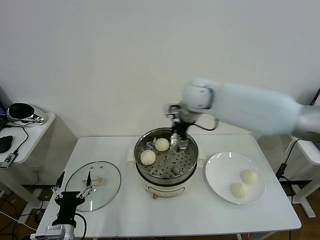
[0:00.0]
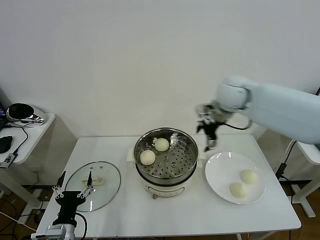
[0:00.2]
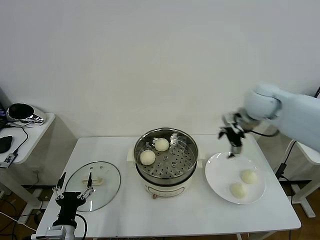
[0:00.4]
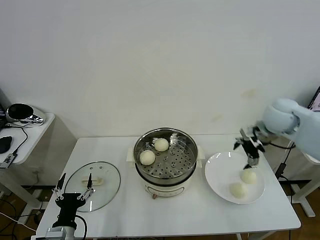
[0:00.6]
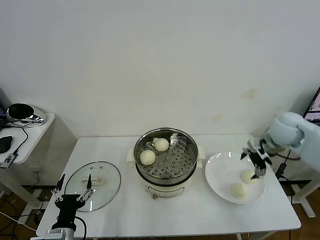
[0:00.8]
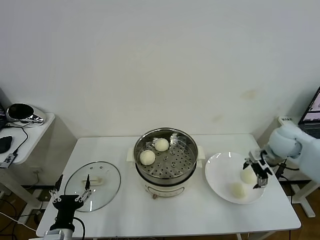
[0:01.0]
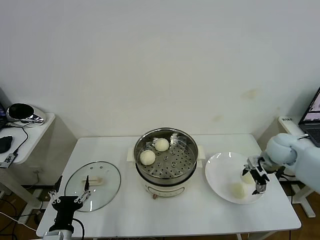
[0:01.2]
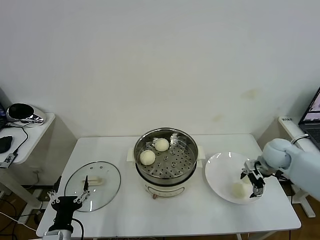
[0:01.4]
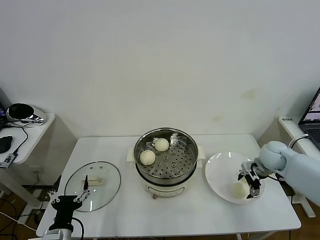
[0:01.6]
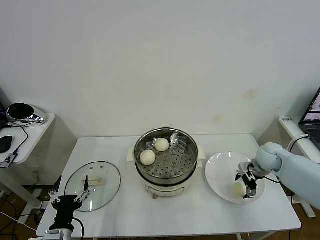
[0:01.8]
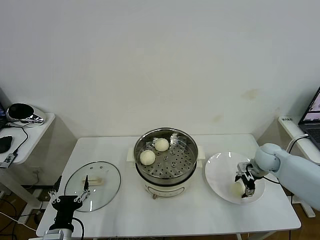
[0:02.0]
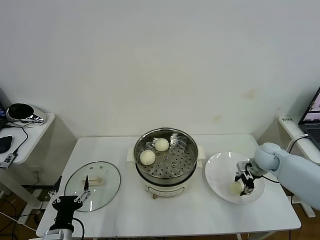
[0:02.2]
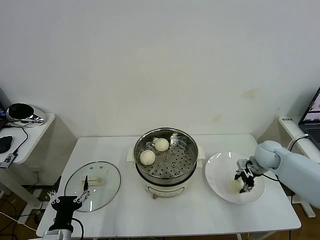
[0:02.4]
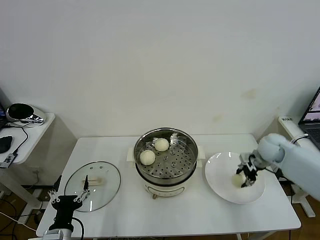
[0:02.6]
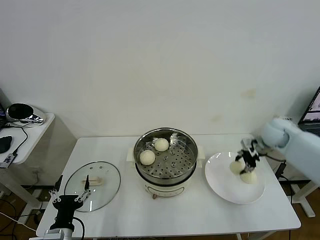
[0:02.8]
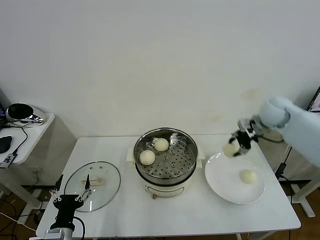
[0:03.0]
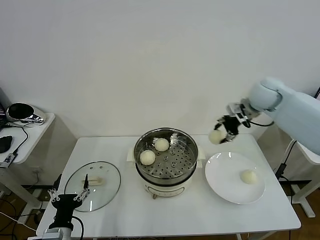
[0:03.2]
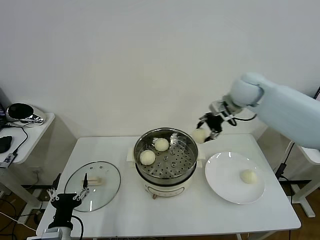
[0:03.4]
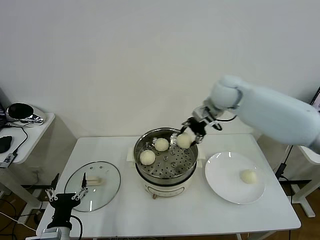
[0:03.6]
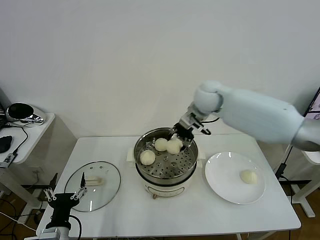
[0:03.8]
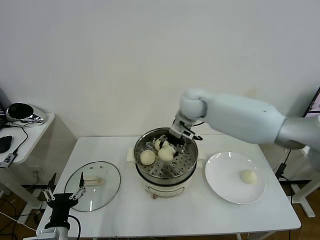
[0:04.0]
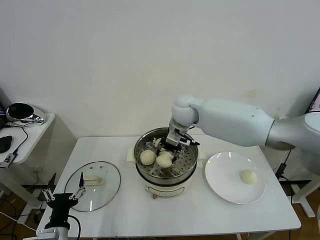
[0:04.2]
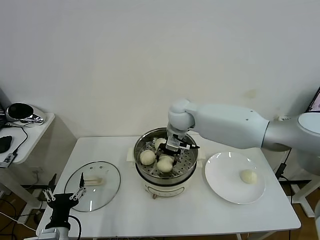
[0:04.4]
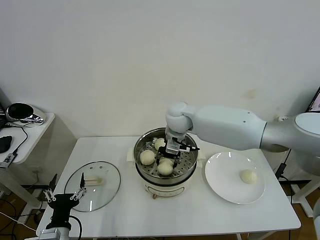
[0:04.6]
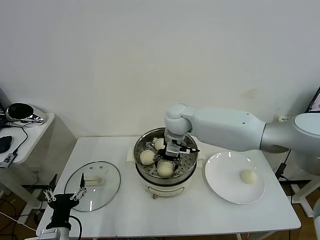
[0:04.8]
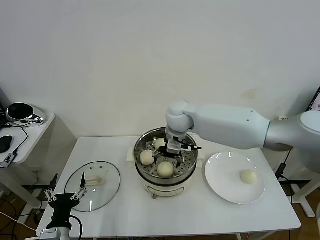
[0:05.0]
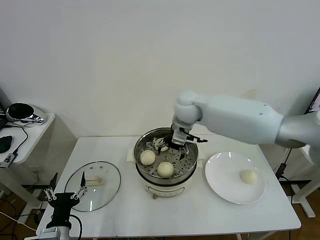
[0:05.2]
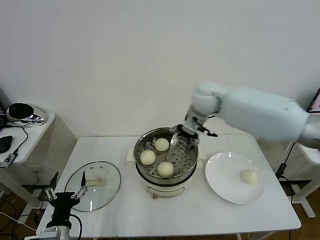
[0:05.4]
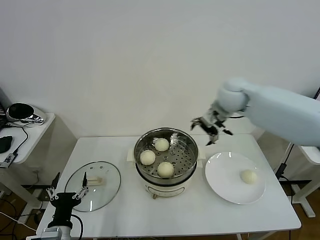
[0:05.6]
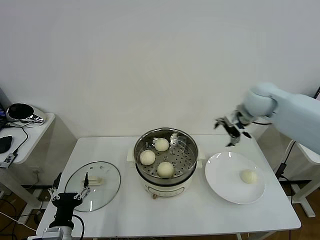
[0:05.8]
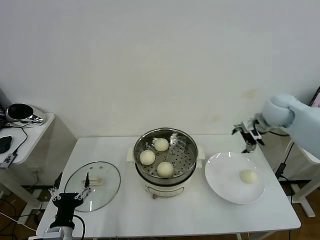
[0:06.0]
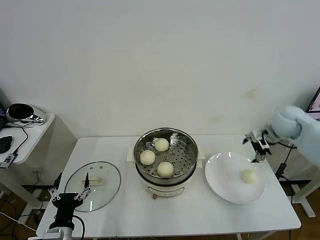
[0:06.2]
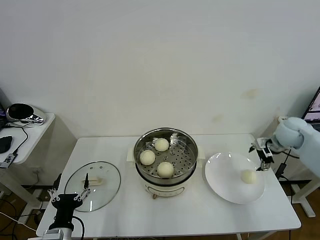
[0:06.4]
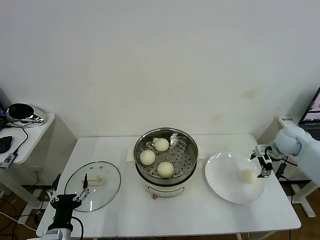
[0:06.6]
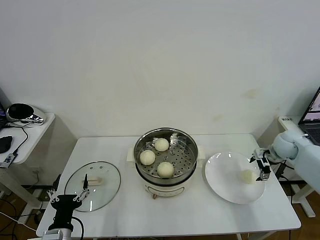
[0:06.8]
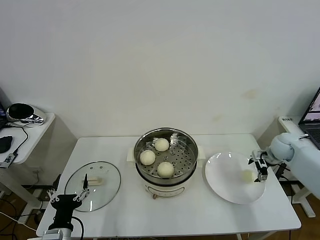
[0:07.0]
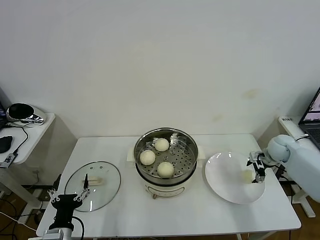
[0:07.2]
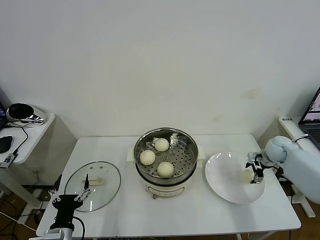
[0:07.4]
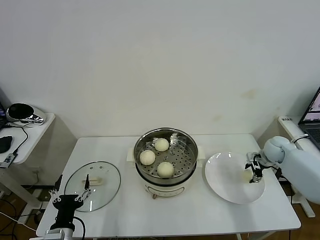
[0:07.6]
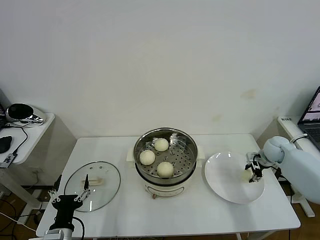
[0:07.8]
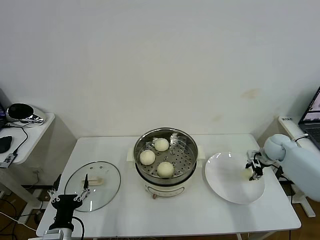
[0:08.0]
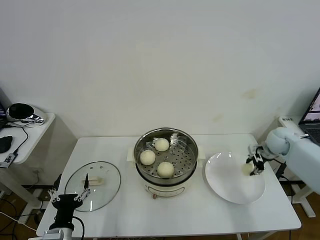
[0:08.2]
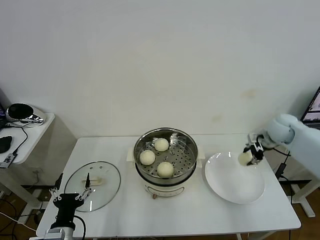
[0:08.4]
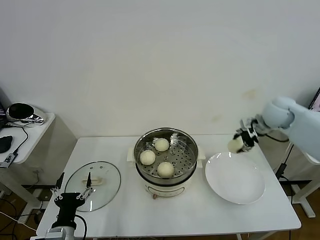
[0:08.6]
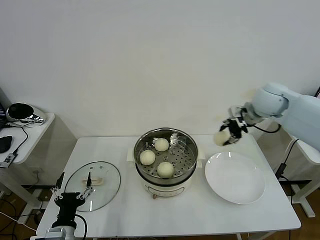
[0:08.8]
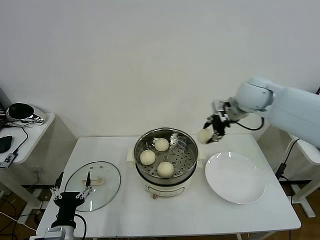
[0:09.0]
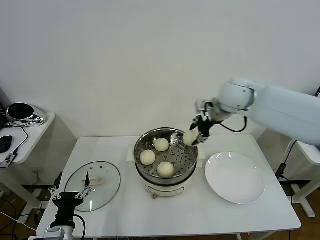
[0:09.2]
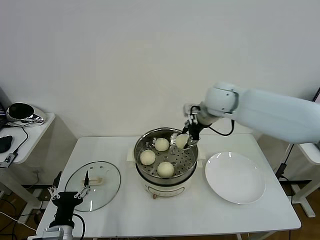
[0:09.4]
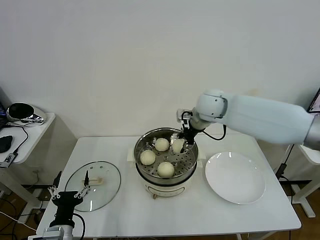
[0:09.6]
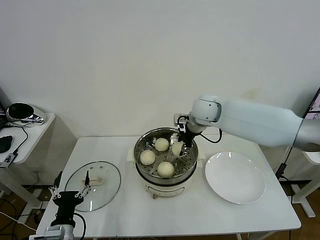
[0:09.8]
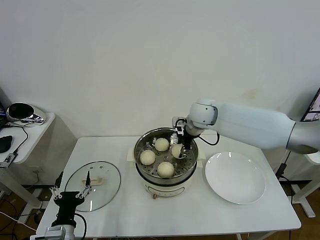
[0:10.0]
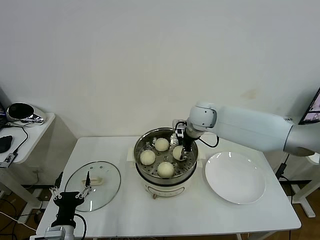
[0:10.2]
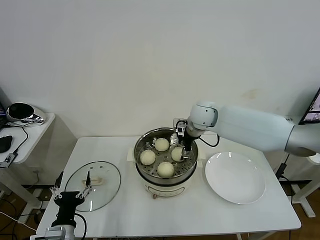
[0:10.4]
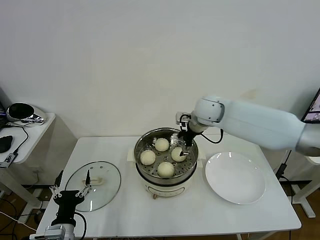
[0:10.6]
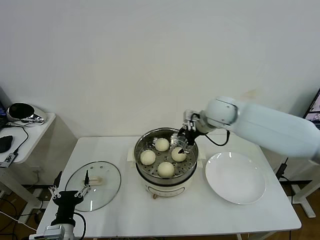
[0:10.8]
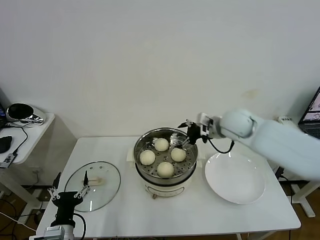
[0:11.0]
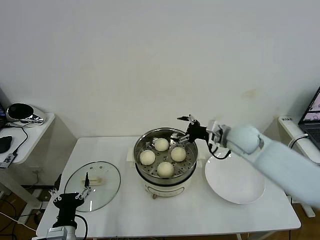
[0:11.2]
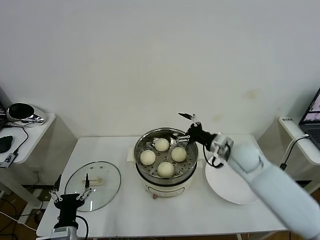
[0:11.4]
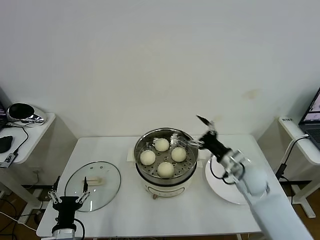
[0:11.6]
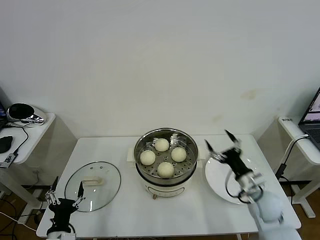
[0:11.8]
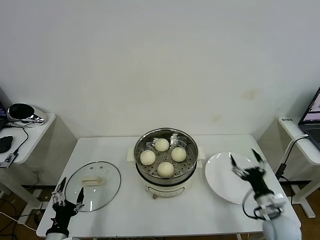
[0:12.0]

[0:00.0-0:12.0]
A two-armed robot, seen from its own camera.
Task of the whole recording: take steamed baozi put them in steamer then cover it.
Step, 0:00.0 to 0:02.2: Grasp the baozi in the plate with right gripper.
Step, 0:02.4 to 0:05.0: Place the baozi on the steamer with right gripper.
Step, 0:05.2 to 0:07.8: Grasp the baozi in the plate with right gripper.
Step, 0:08.0 to 0:10.4: Place the baozi on the steamer with right gripper.
0:00.0 to 0:01.6: The right gripper is displaced to the right and downward by about 35 cm.
0:01.6 to 0:03.0: The right gripper is displaced upward and forward by about 20 cm, and closes its fingers.
0:03.0 to 0:04.4: The right gripper heads to the left, covering about 30 cm.
0:04.4 to 0:06.0: The right gripper travels to the right by about 30 cm, and opens.
0:06.0 to 0:07.6: The right gripper is displaced downward and to the right by roughly 20 cm, and closes.
0:07.6 to 0:09.0: The right gripper is displaced upward and to the left by some 30 cm.
0:09.0 to 0:10.4: The right gripper is displaced to the left and downward by approximately 15 cm, and opens its fingers.
0:10.4 to 0:12.0: The left gripper shifts by roughly 5 cm. Meanwhile the right gripper travels backward, to the right and downward by about 40 cm.

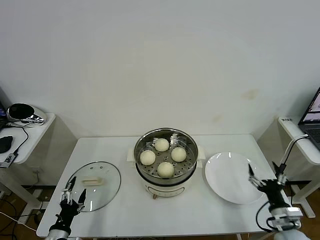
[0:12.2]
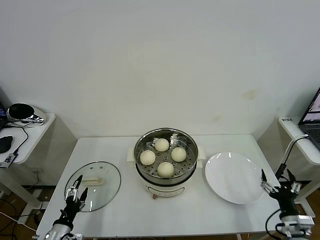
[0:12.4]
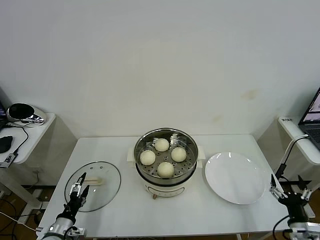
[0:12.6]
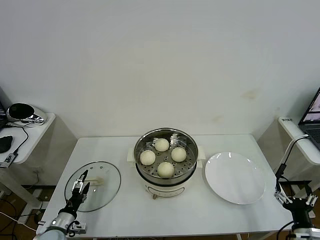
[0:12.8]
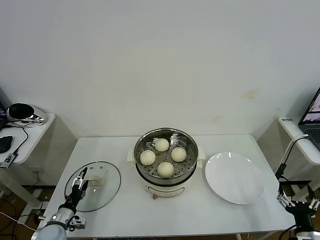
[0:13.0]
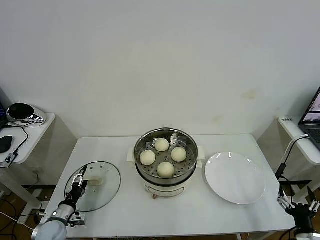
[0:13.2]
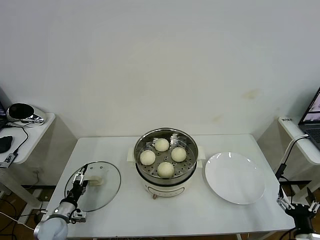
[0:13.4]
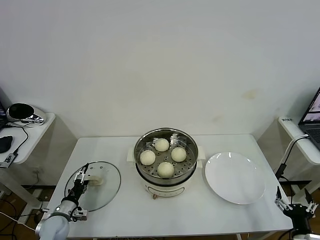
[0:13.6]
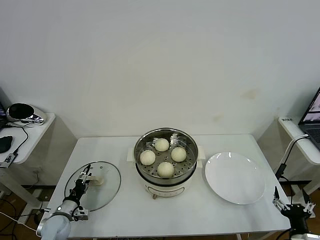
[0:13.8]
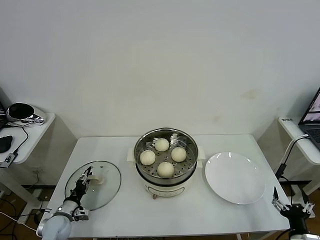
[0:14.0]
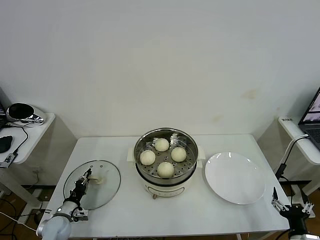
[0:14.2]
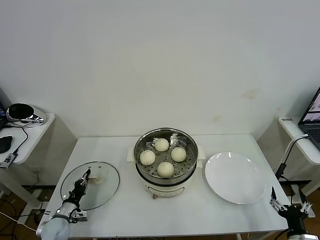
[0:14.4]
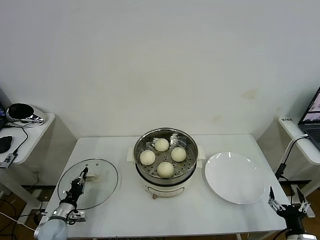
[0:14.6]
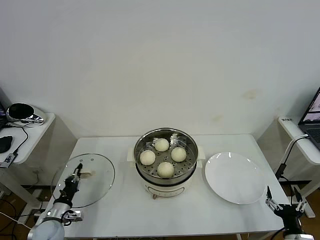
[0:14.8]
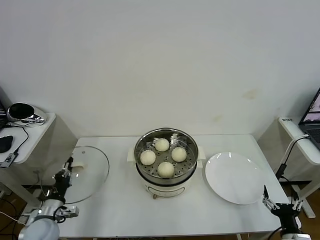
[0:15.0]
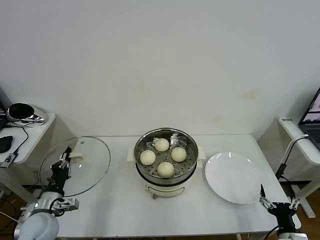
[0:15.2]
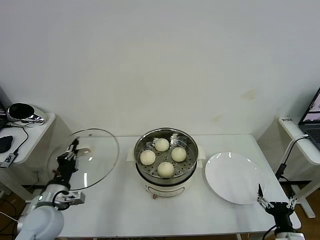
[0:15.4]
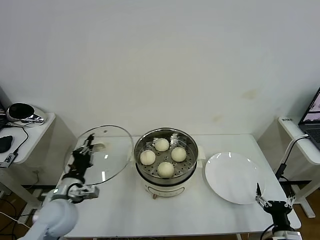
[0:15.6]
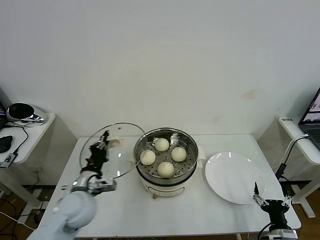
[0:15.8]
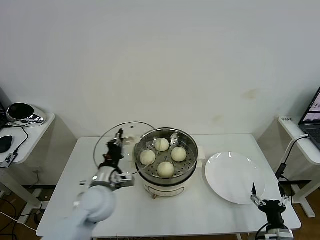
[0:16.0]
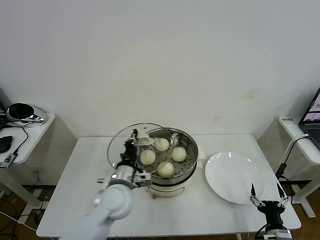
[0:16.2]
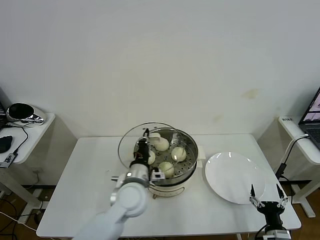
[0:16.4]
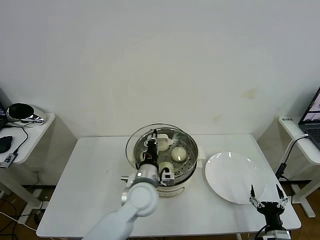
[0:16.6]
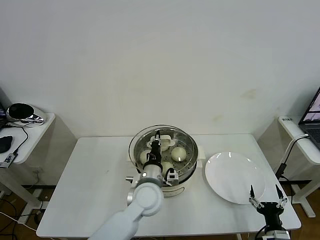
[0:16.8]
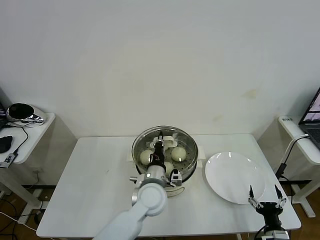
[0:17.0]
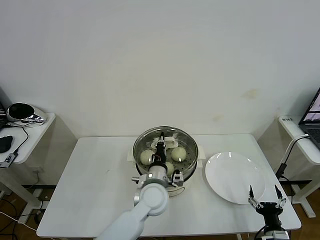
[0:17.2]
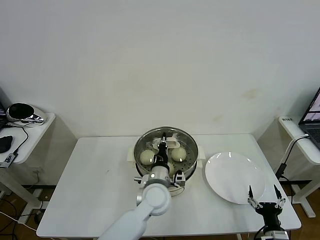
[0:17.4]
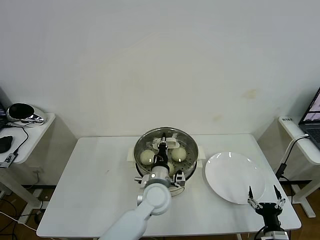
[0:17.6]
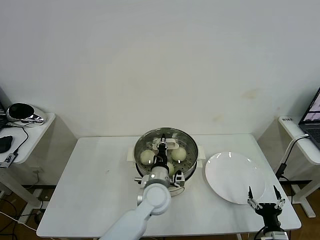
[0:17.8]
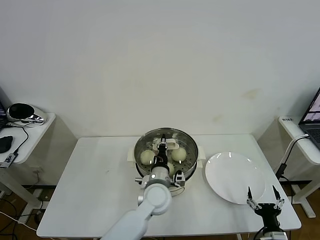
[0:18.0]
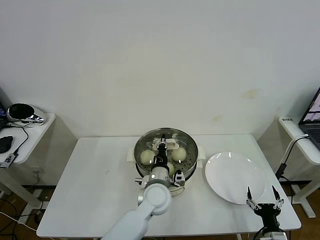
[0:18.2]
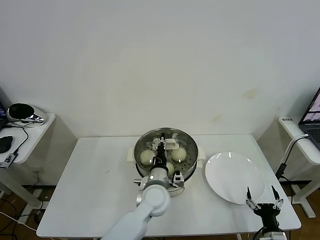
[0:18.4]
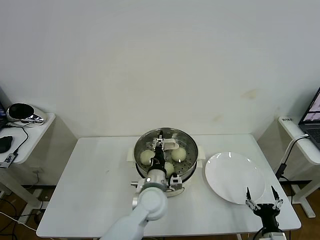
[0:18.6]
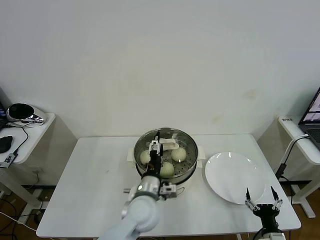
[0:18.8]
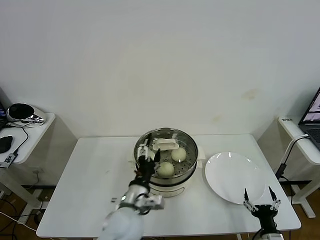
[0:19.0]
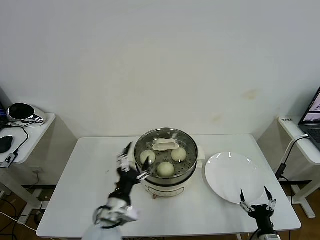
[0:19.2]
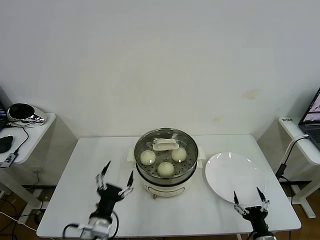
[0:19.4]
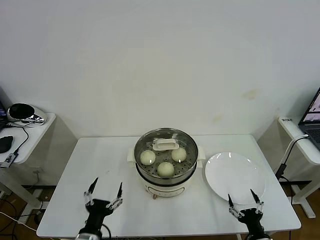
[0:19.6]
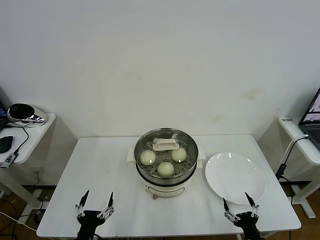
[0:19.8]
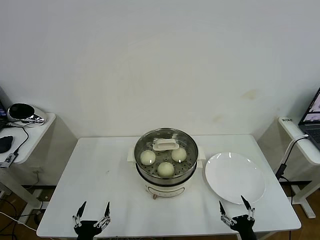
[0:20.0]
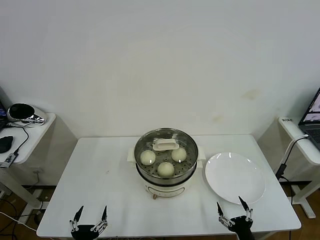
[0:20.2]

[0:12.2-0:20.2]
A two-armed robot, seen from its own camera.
Task of the whole recording: take steamed baozi put them in steamer then cover it.
Step, 0:12.2 to 0:14.4: Grasp the pot lid with left gripper.
Step, 0:14.6 to 0:18.8: Place the pot lid on the steamer with left gripper.
0:12.2 to 0:13.8: The left gripper travels forward and downward by roughly 15 cm; the right gripper heads backward, covering roughly 10 cm.
0:13.8 to 0:15.4: The left gripper is displaced upward by roughly 15 cm, and closes up.
0:15.4 to 0:17.0: The left gripper travels to the right by approximately 30 cm.
0:17.0 to 0:18.6: The left gripper opens its fingers.
0:18.6 to 0:20.2: The right gripper goes some 5 cm to the left; the left gripper heads backward and to the left, covering some 35 cm, and opens its fingers.
